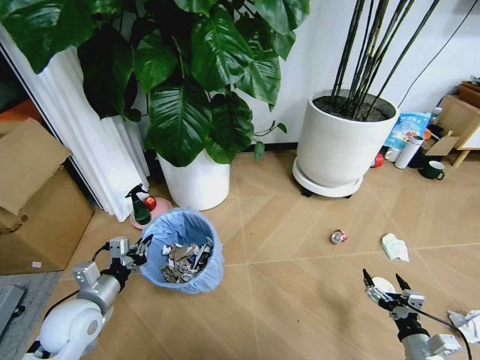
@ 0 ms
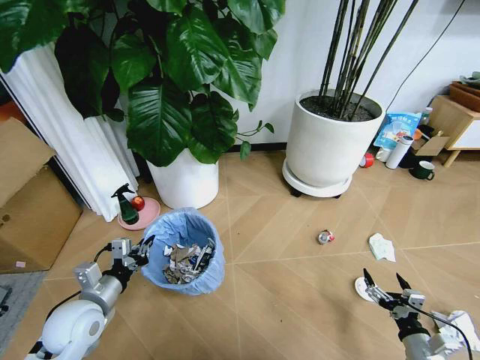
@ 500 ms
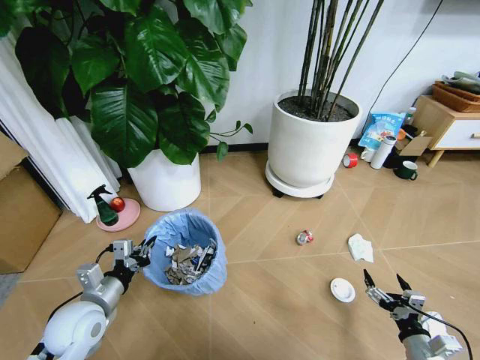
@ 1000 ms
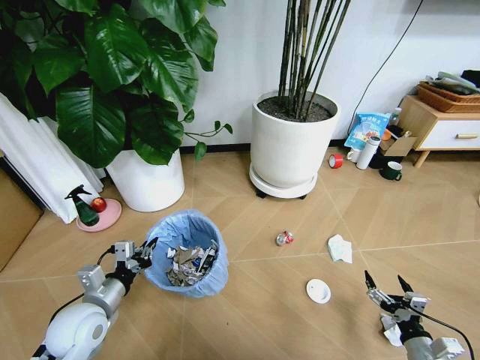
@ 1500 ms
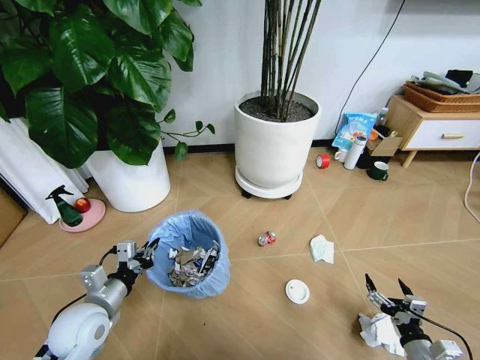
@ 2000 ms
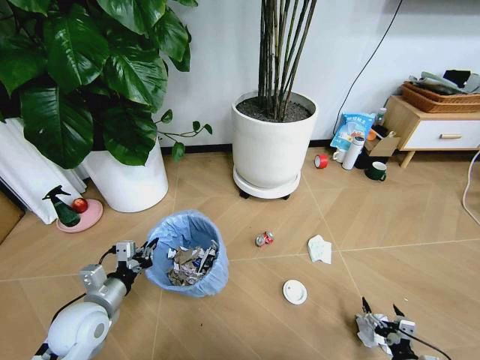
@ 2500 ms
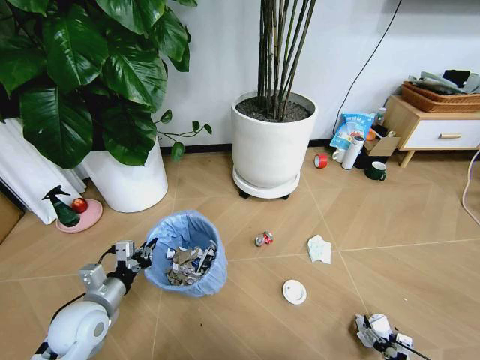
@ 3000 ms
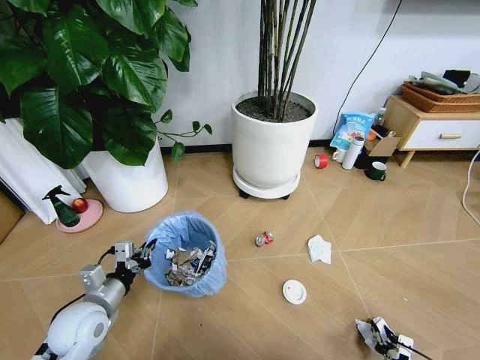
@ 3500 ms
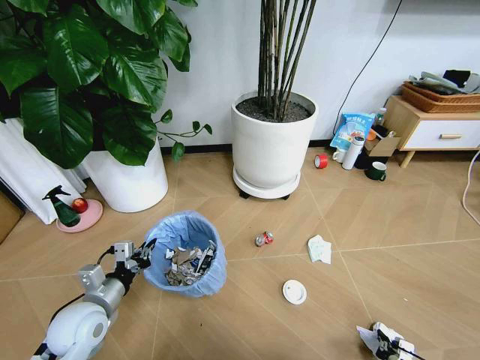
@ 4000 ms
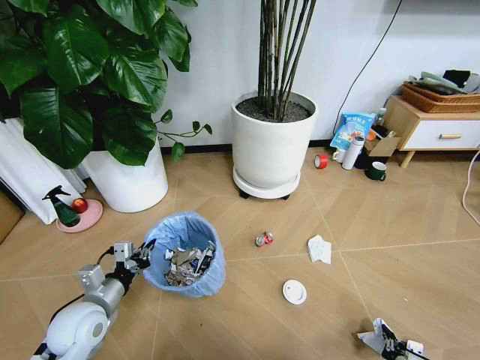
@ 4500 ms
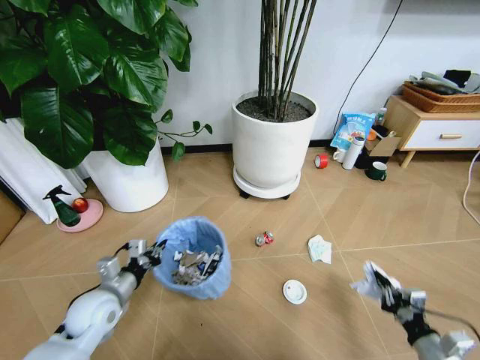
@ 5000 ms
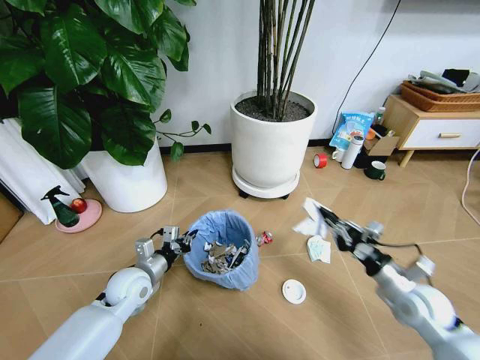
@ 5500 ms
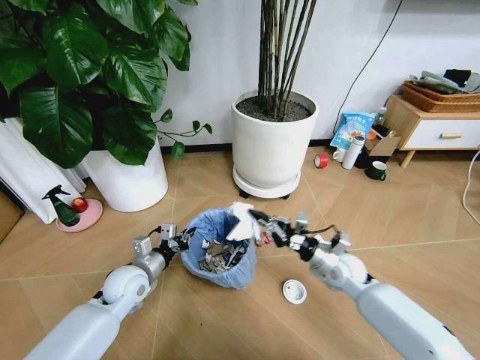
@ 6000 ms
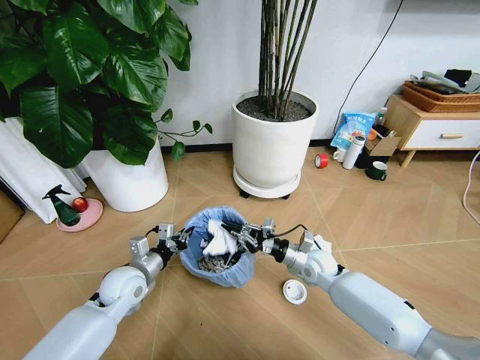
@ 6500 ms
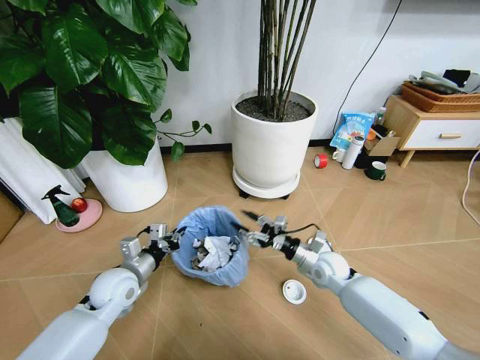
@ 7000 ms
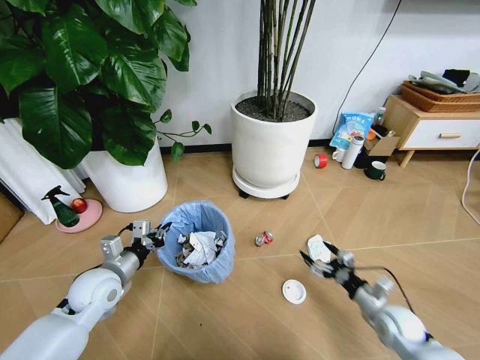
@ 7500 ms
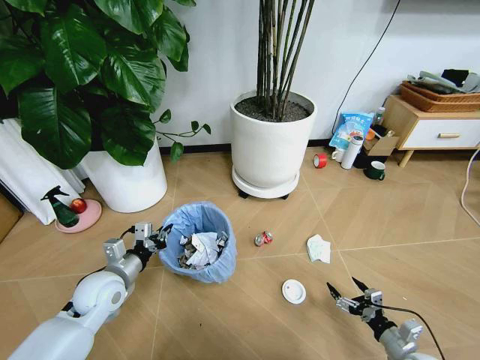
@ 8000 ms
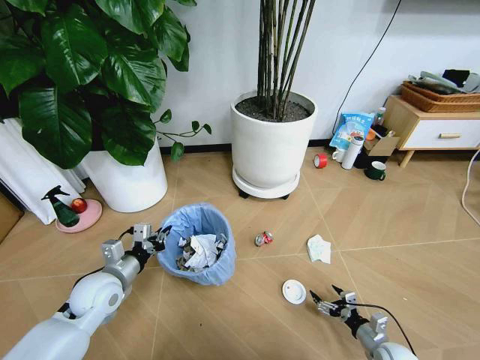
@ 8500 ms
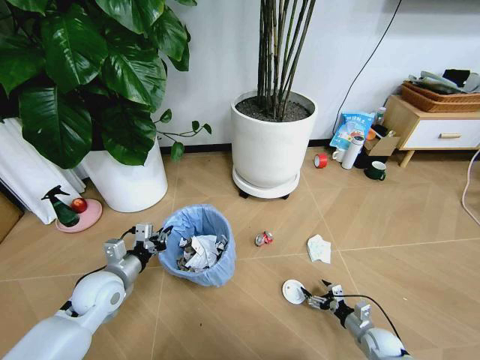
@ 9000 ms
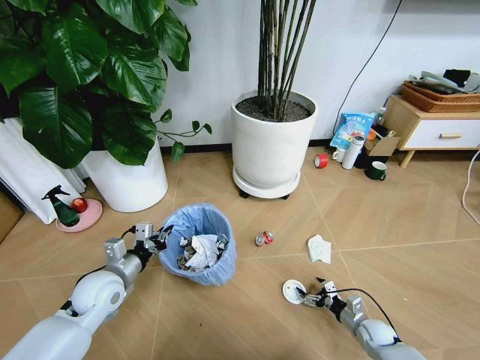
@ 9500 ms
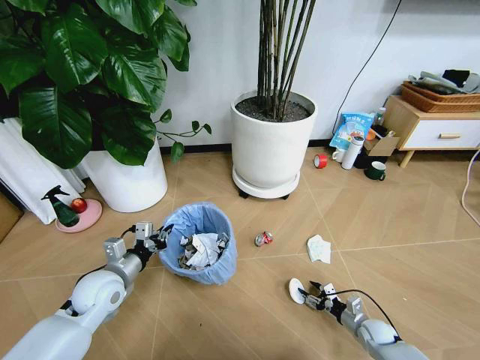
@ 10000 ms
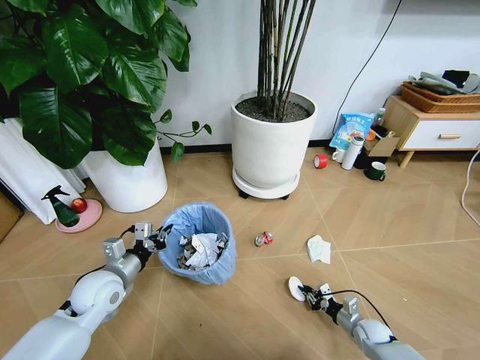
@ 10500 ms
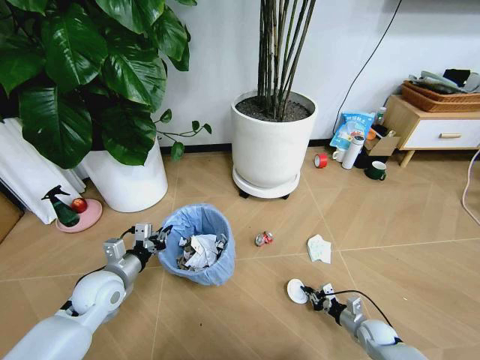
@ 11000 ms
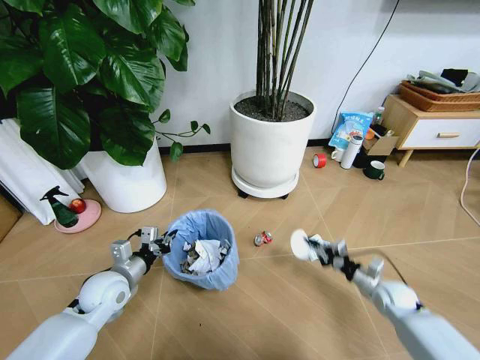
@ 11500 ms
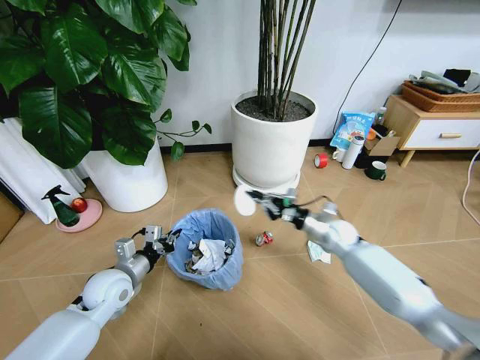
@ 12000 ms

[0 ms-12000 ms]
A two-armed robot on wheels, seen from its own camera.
Task of the whole recording: Pick up the trash bin and place the garbage on the floor into it.
2000 ms to 4000 ms: The right gripper goes about 5 cm downward, and closes.
4000 ms to 6000 ms: The right gripper goes roughly 35 cm forward, upward and to the left; the left gripper moves forward and to the right, approximately 10 cm.
6000 ms to 8000 ms: The right gripper travels backward, to the right and downward by approximately 30 cm, and opens up. The left gripper moves approximately 5 cm.
8000 ms to 10000 ms: The right gripper heads forward and downward, covering some 15 cm, and closes.
10000 ms to 12000 ms: The right gripper heads upward, forward and to the left, covering about 30 cm, and closes up.

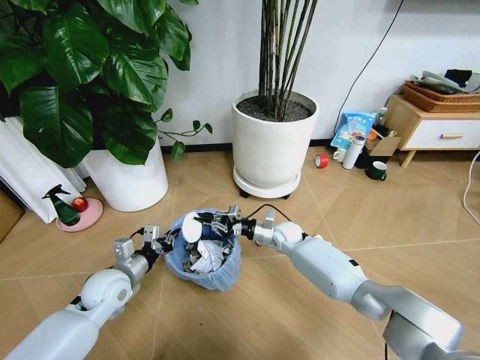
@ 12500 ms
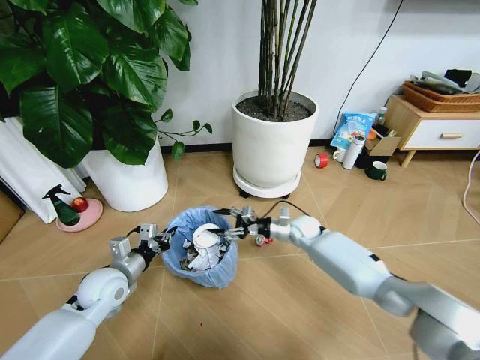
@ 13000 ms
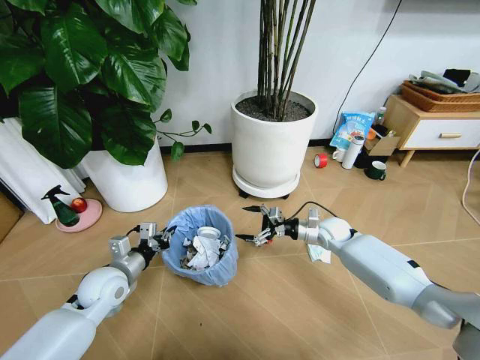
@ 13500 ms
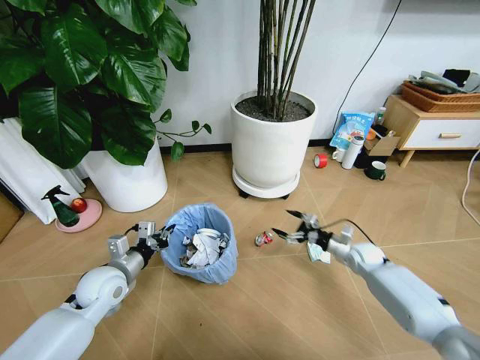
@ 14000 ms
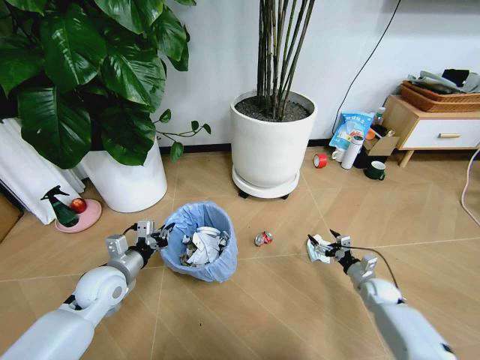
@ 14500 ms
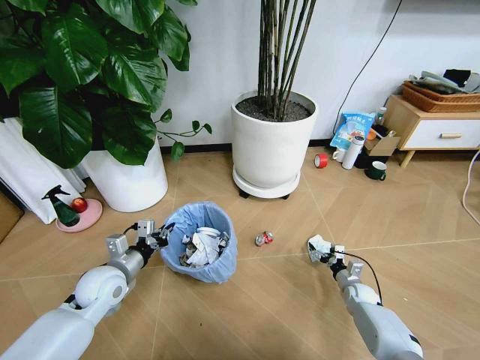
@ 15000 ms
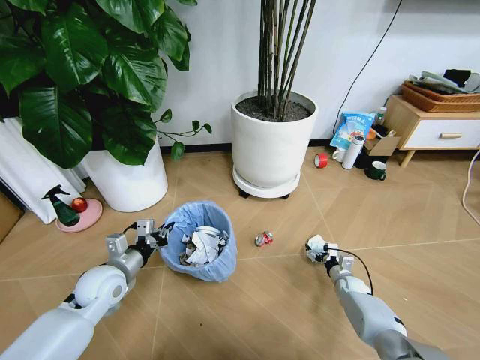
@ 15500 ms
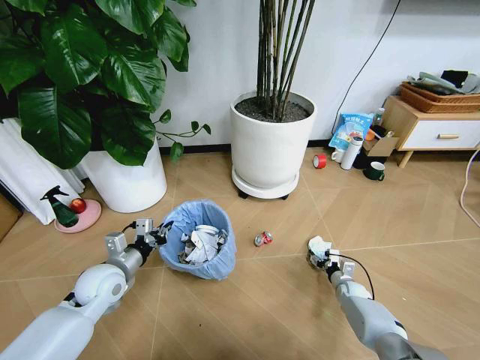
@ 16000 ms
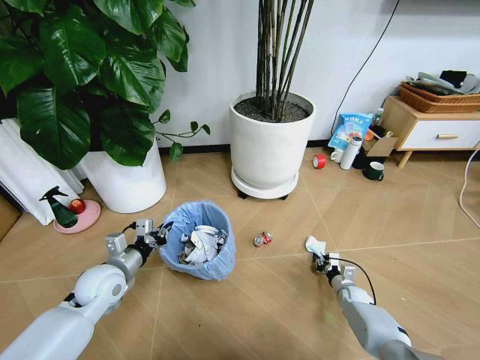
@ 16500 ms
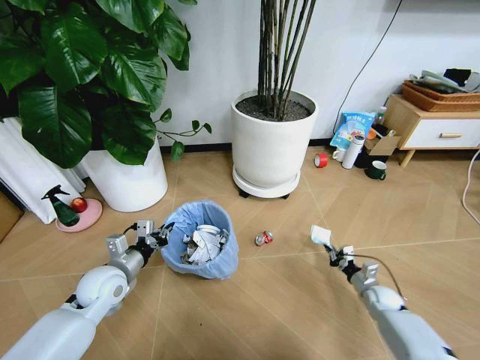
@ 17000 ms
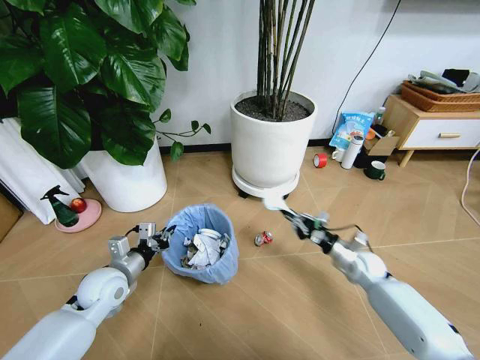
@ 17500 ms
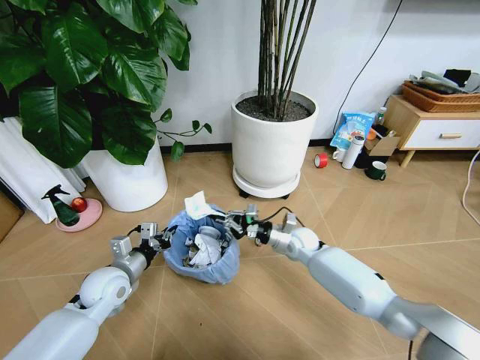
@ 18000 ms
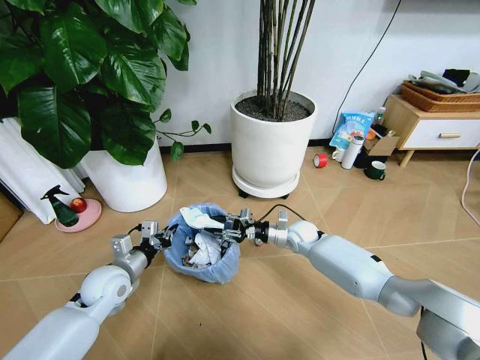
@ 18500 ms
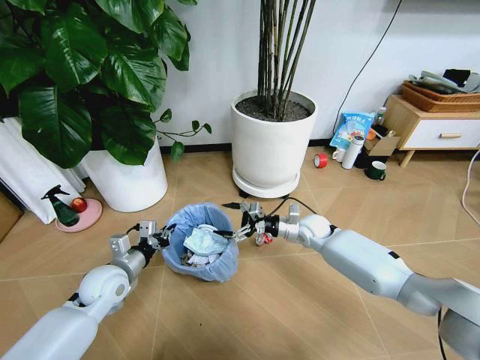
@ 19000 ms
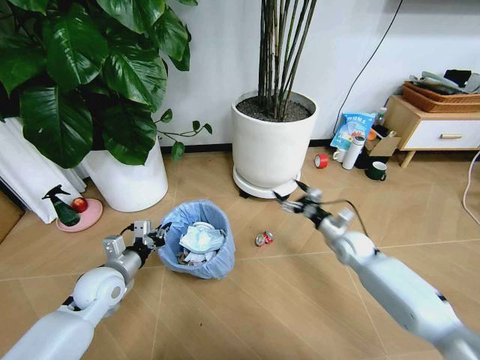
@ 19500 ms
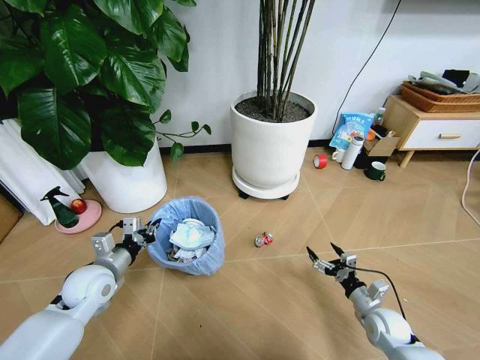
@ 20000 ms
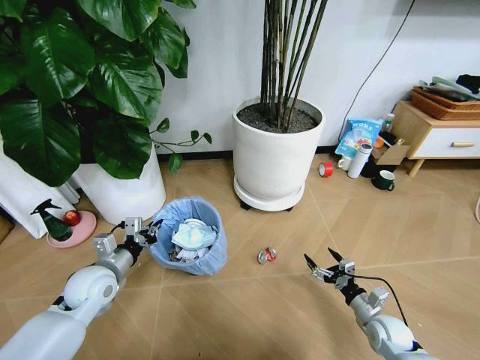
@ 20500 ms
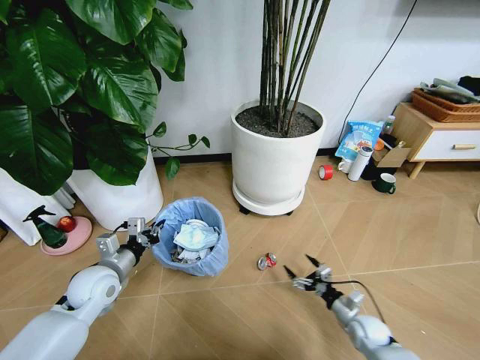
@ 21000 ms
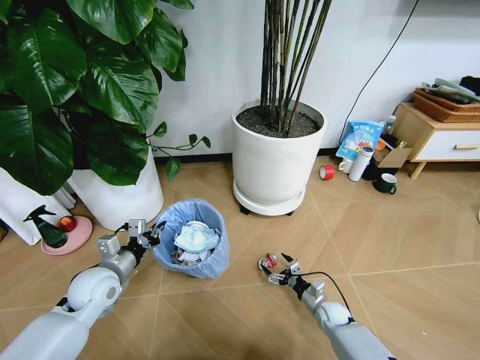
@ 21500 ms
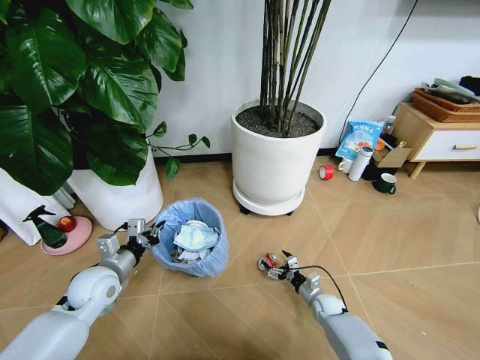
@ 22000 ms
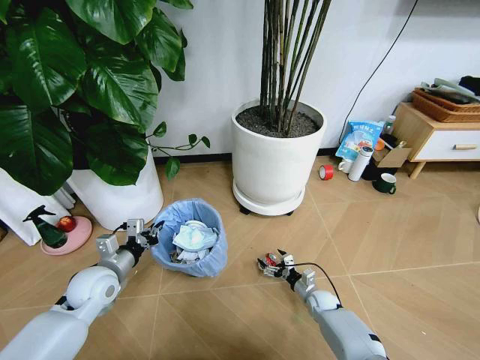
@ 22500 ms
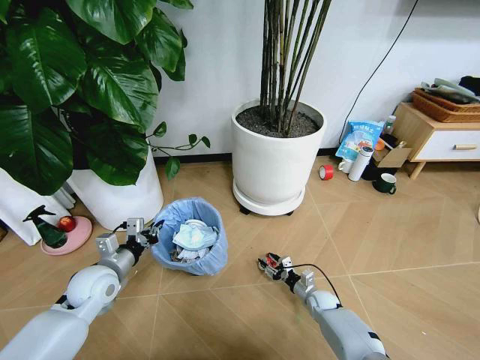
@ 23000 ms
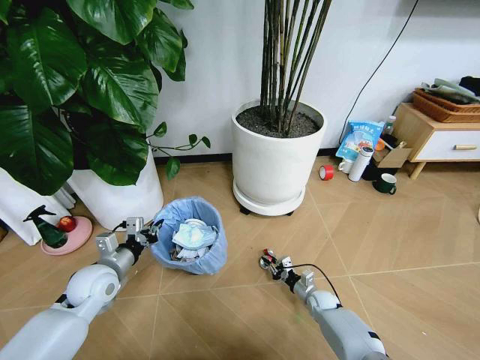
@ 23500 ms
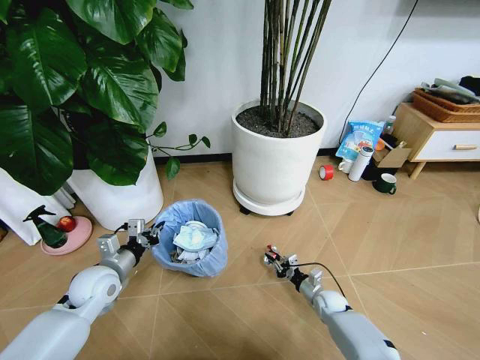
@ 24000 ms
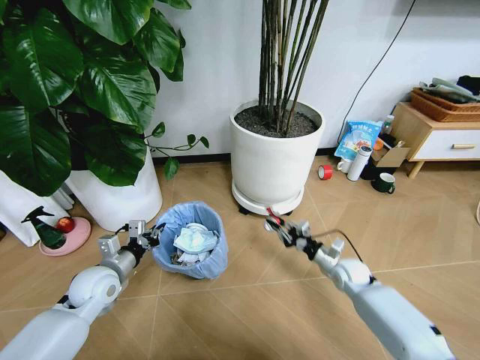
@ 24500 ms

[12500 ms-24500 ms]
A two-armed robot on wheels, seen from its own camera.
Task of the whole recording: Pick up the trash bin and place the garbage on the floor into it.
12500 ms to 14500 ms: The right gripper is displaced to the right and backward by approximately 30 cm, and opens its fingers.
14500 ms to 16500 ms: The right gripper moves downward, approximately 10 cm, and closes up.
16500 ms to 18500 ms: The right gripper is displaced upward, to the left and forward by about 30 cm.
18500 ms to 20500 ms: The right gripper travels backward, to the right and downward by about 35 cm, and opens its fingers.
20500 ms to 22500 ms: The right gripper goes approximately 20 cm to the left, forward and downward.
22500 ms to 24500 ms: The right gripper shifts about 15 cm upward, and closes its fingers.

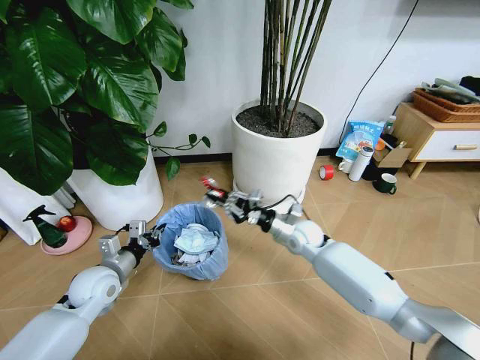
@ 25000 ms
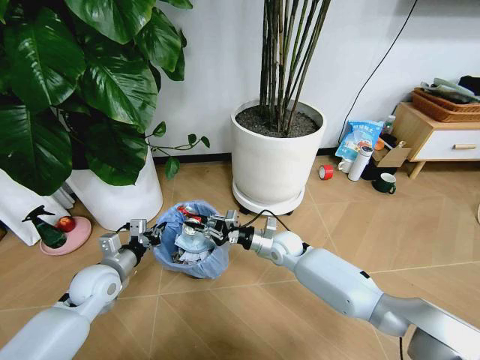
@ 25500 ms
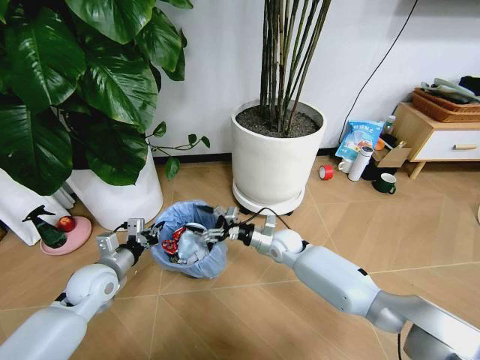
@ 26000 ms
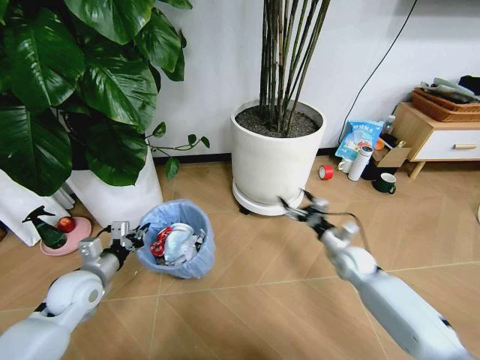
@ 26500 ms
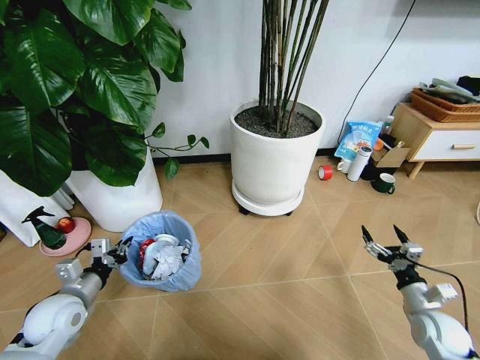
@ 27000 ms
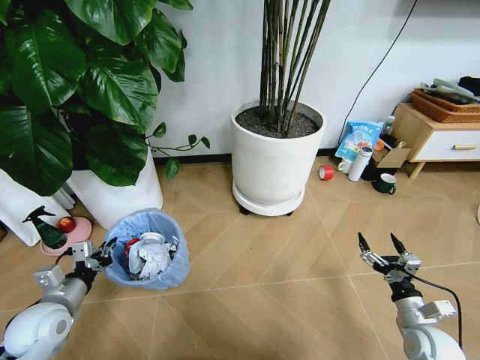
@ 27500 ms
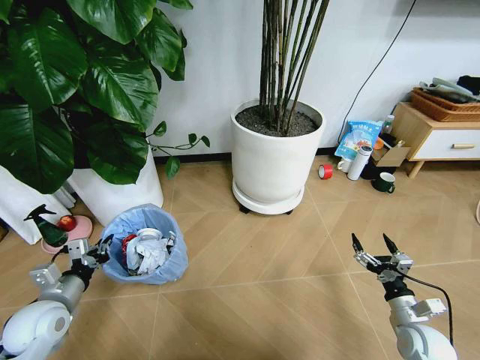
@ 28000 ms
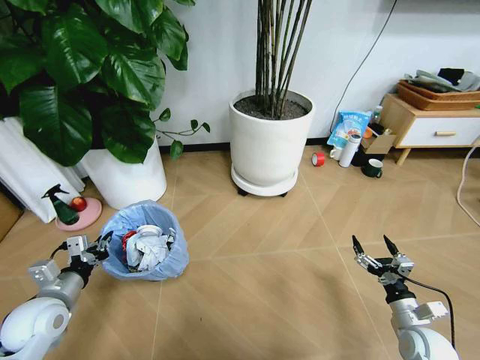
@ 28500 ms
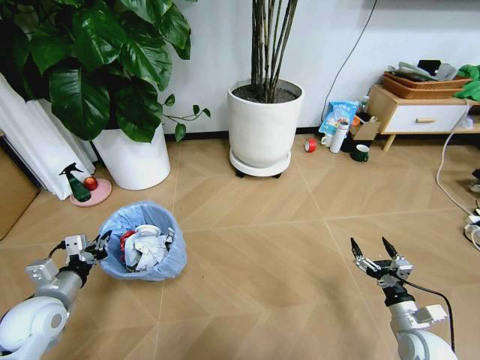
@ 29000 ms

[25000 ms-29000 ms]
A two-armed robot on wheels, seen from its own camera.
Task of the whole recording: Pick up the trash bin and place the garbage on the floor into it.
25000 ms to 27000 ms: The left gripper travels backward and to the left by approximately 10 cm; the right gripper is displaced to the right and backward by approximately 35 cm, and opens.
27000 ms to 29000 ms: The right gripper shifts by roughly 5 cm.
